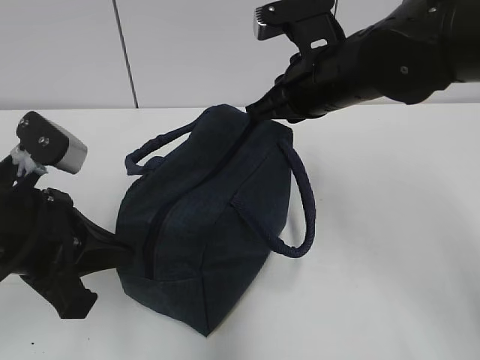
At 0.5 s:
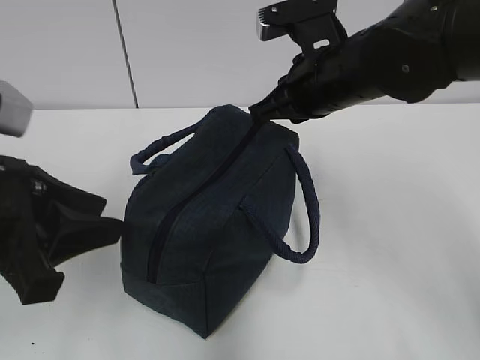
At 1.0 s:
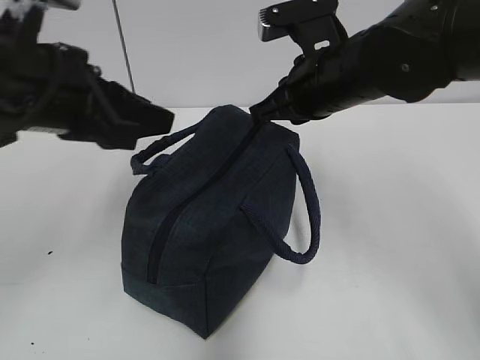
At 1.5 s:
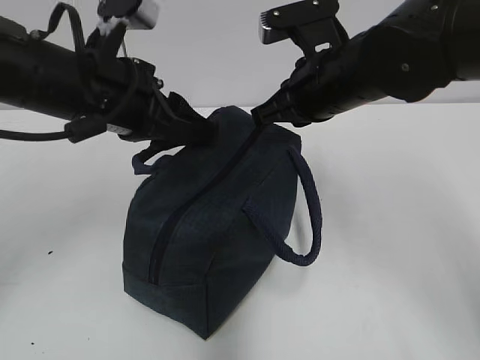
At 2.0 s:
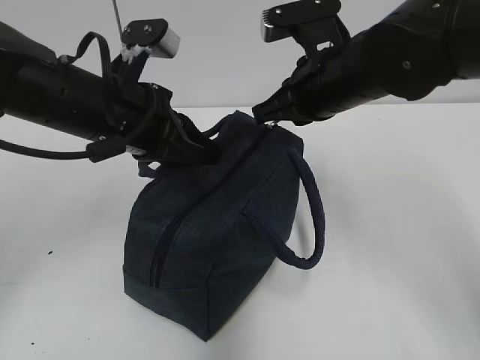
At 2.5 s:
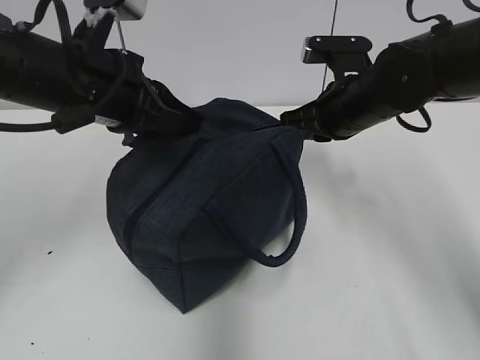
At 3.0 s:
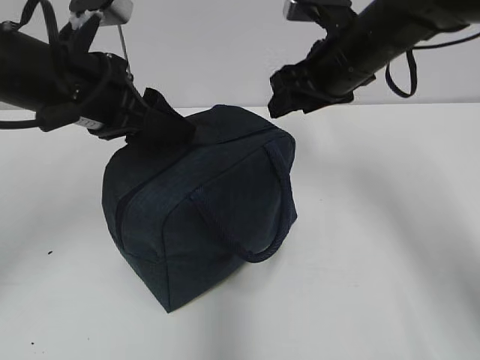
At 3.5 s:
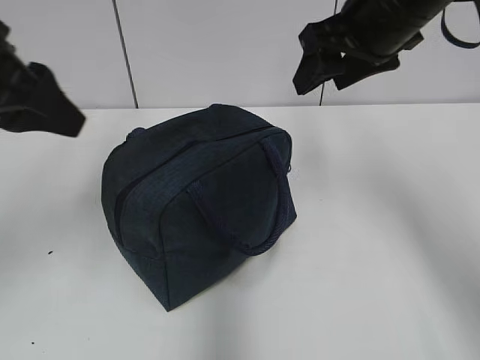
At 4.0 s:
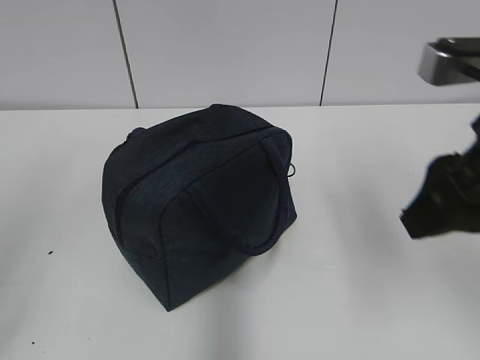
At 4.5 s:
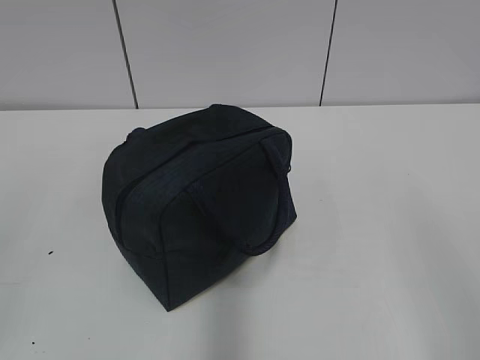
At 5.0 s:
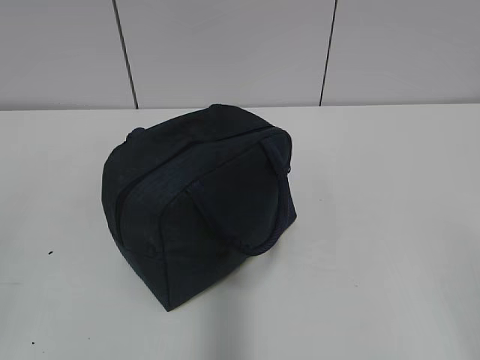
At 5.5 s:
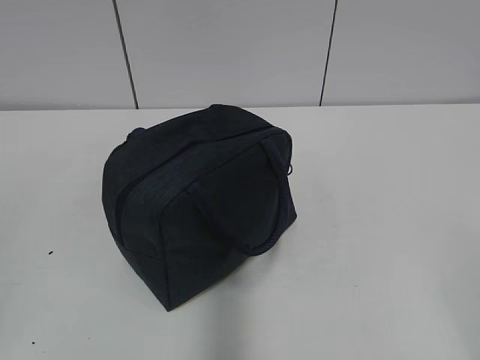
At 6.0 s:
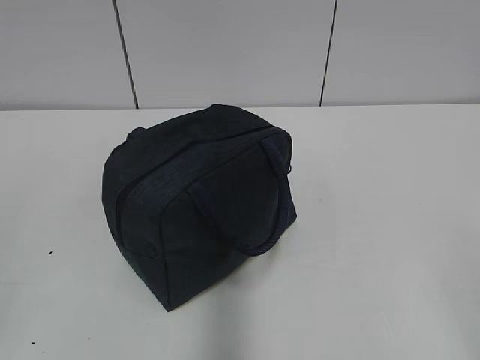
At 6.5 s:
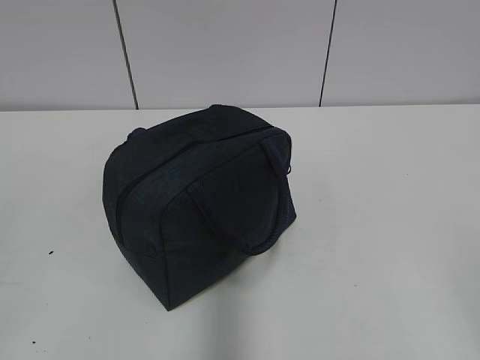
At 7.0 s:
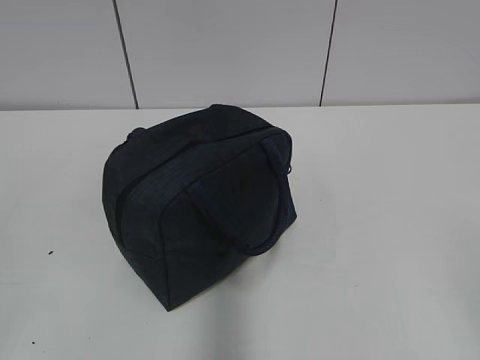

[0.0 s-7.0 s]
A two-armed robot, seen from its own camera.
Step, 0.5 to 2.5 s: Pull the zipper with your right hand.
0.0 to 2.0 s: The left gripper heads forward and to the right, covering approximately 15 cm, and opens, then closes once more.
2.0 to 3.5 s: The right gripper shifts approximately 5 cm upward, and opens its fingers. Meanwhile the left gripper moves upward, to the left and backward, roughly 15 cm, and opens.
3.5 to 5.0 s: The left gripper travels backward and to the left by roughly 25 cm. The right gripper heads backward, covering approximately 35 cm.

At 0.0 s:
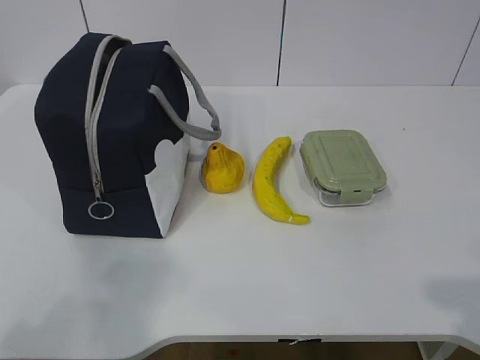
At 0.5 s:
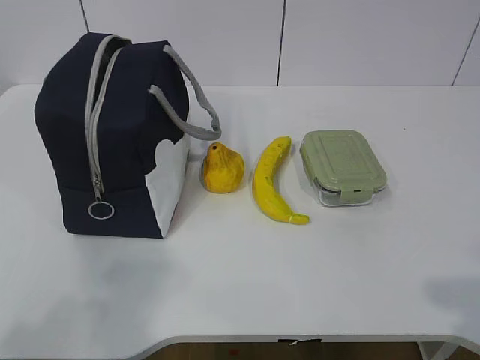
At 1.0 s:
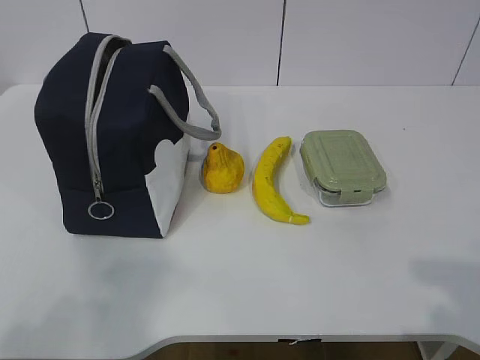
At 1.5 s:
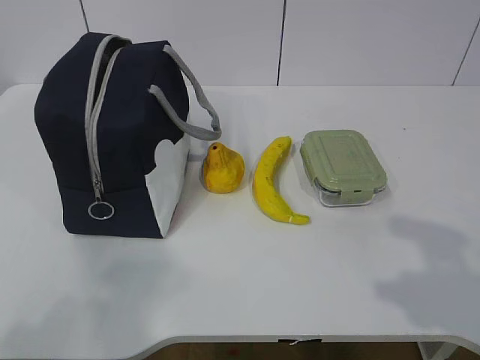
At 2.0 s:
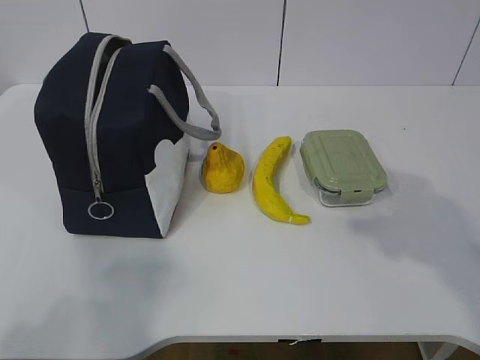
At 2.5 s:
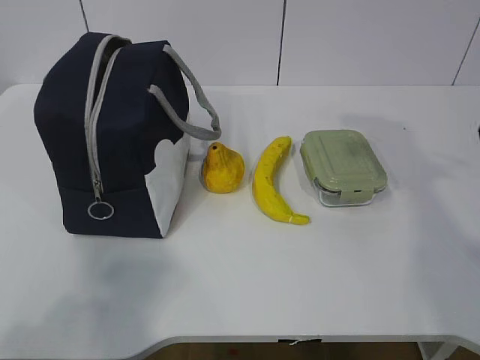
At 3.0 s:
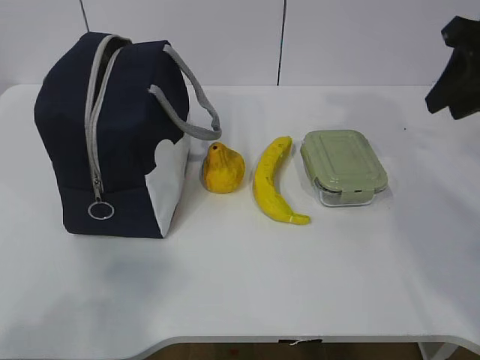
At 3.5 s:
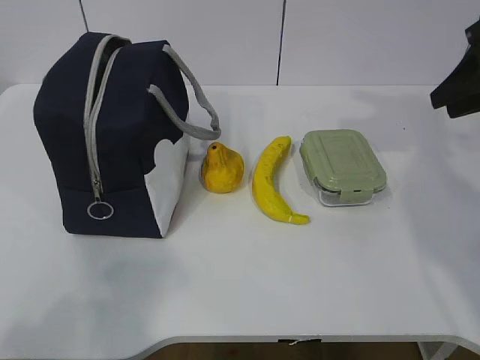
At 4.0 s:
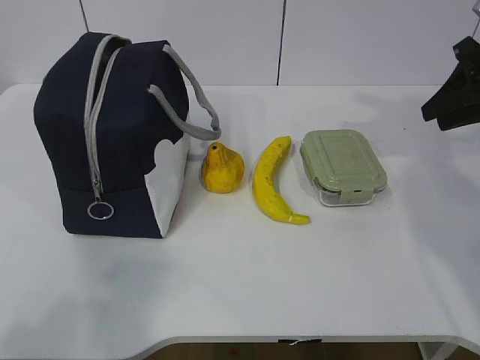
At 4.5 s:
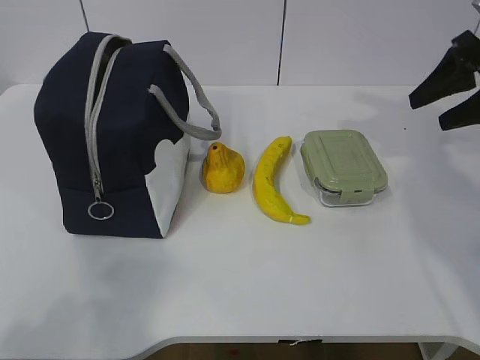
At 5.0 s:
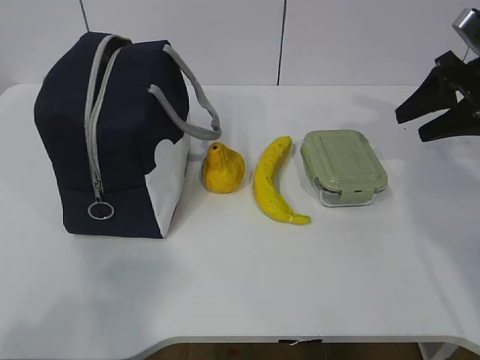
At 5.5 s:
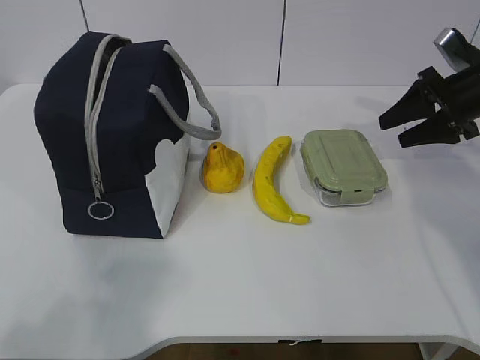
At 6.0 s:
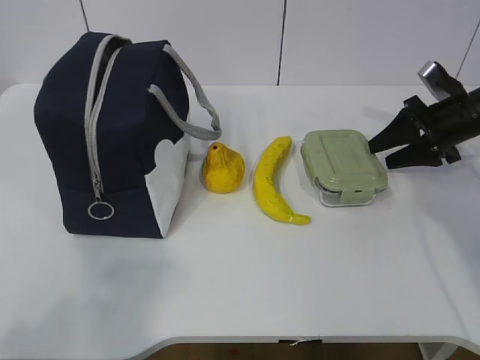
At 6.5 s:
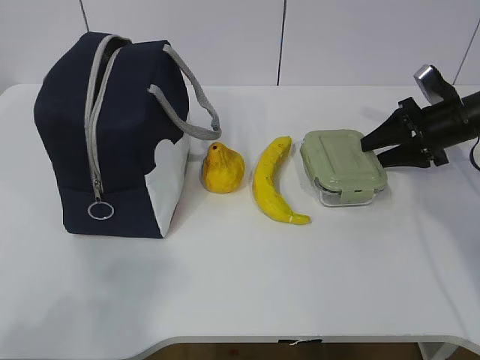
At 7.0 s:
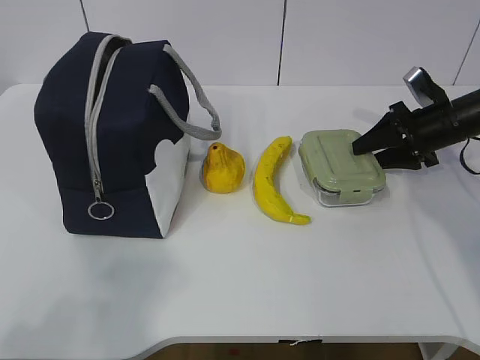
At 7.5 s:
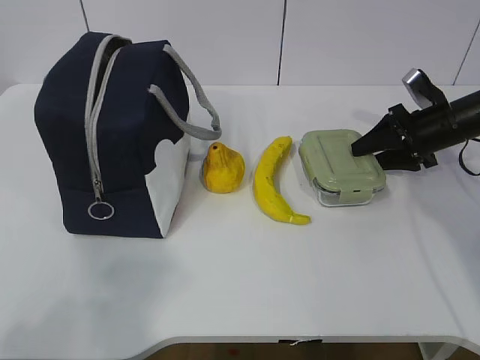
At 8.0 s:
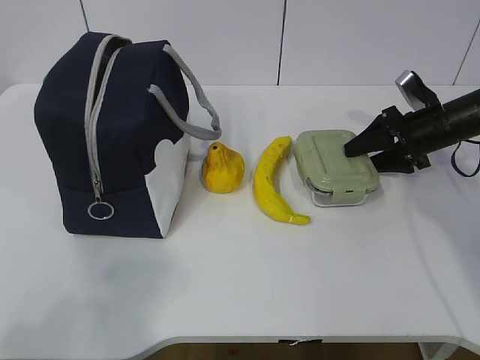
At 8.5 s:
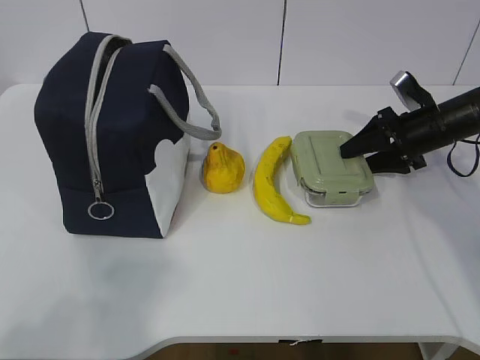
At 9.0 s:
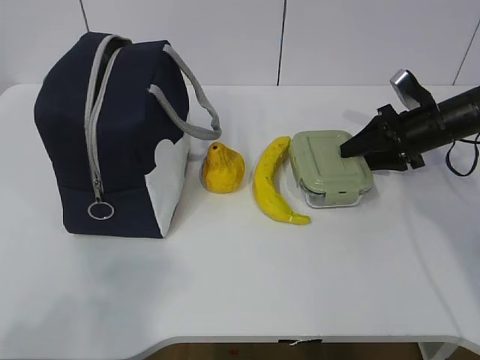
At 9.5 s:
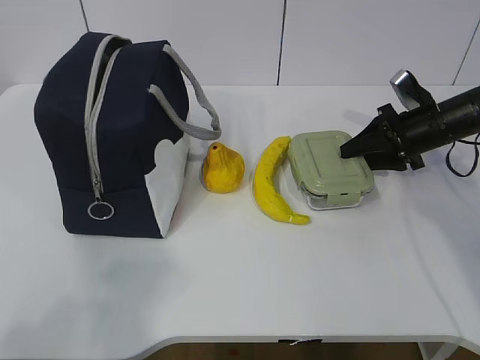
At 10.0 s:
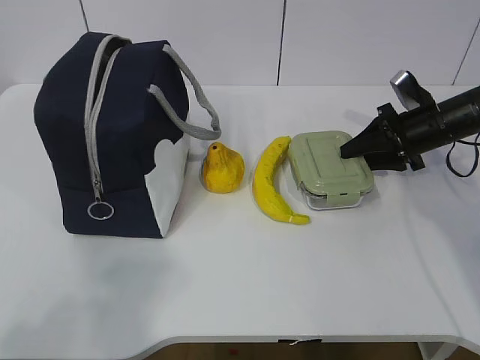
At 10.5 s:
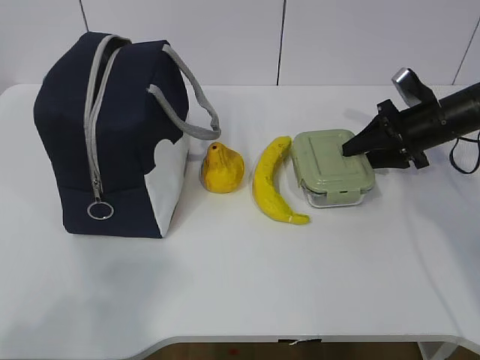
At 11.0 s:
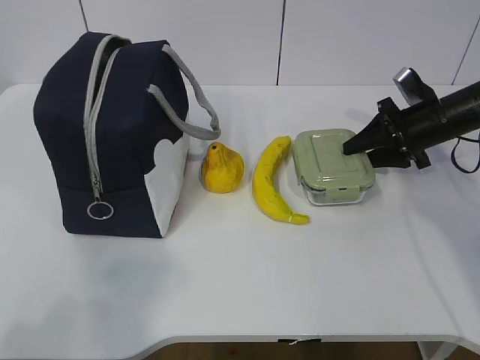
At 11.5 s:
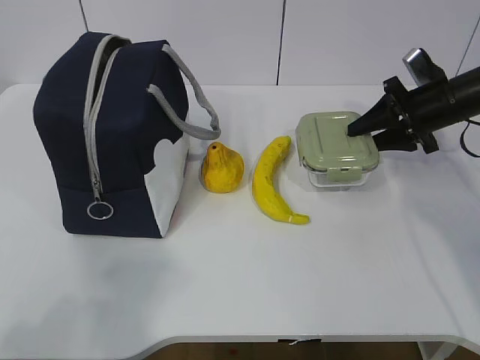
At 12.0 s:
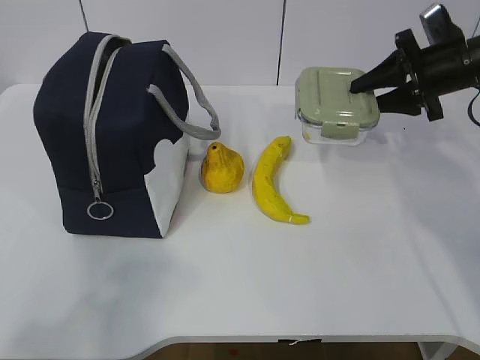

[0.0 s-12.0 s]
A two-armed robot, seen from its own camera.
Step, 0.0 to 9.0 s: Grab the lunch box with your right hand.
2.0 to 4.0 s: The right gripper shifts some 25 cm forward.
4.0 to 6.0 s: The right gripper goes some 15 cm downward and forward.
6.0 to 8.0 s: The grippers stay close to where they were, moving slightly.
8.0 to 10.0 s: The two grippers keep their place.
10.0 to 12.0 s: The right gripper heads upward, covering approximately 10 cm.

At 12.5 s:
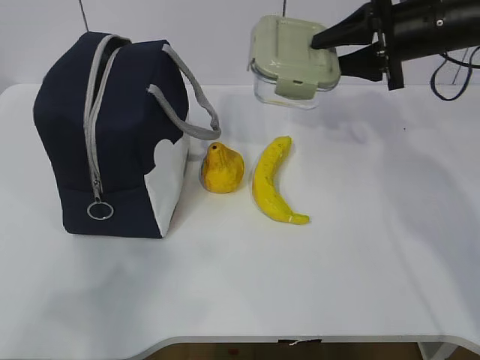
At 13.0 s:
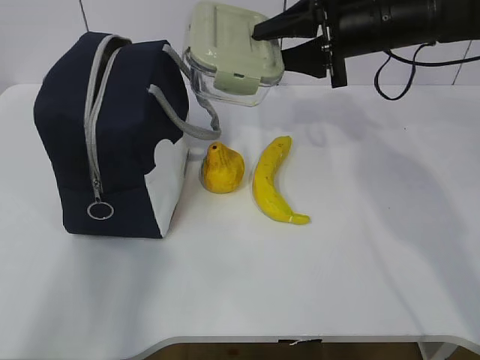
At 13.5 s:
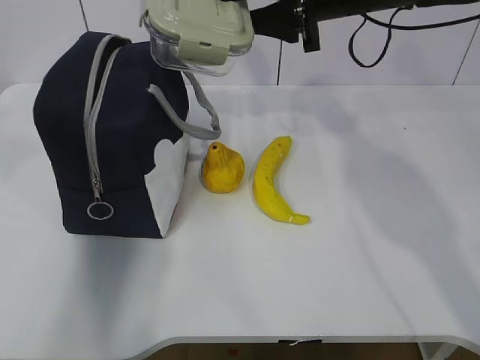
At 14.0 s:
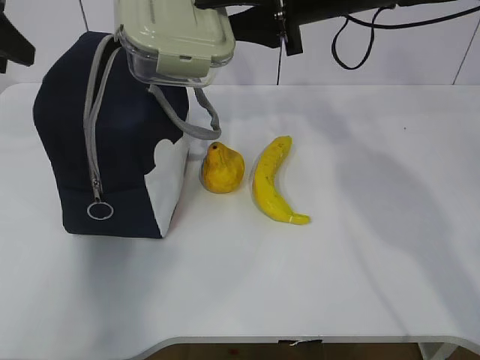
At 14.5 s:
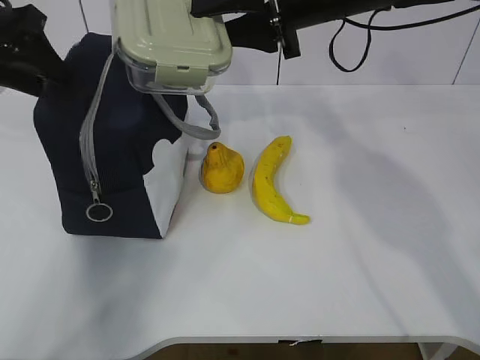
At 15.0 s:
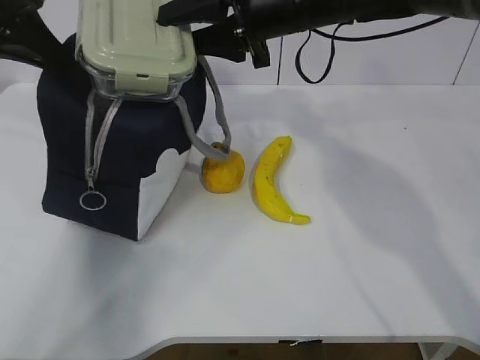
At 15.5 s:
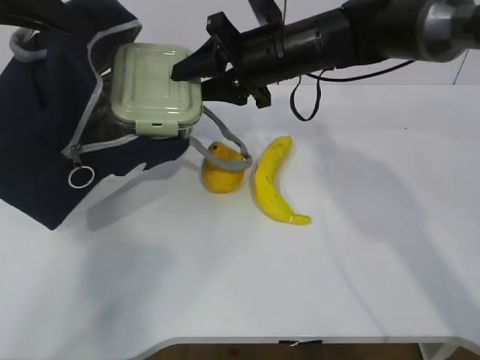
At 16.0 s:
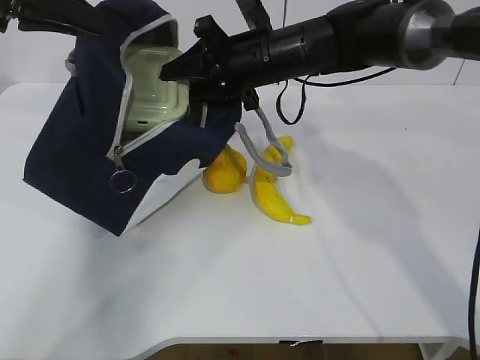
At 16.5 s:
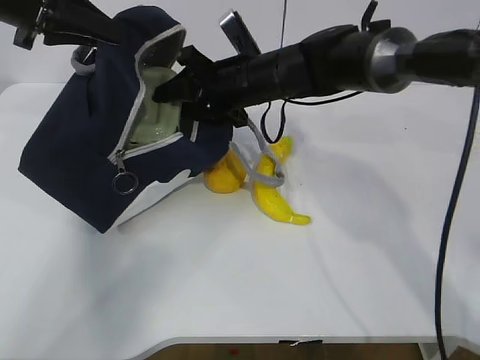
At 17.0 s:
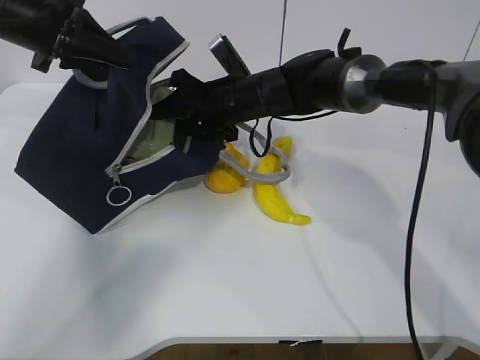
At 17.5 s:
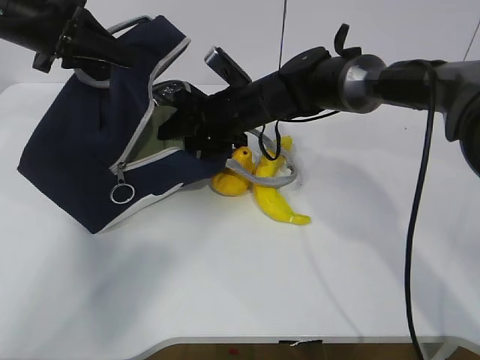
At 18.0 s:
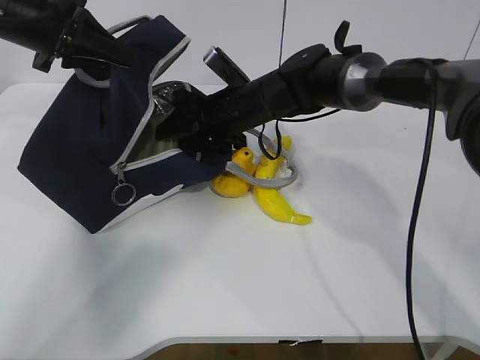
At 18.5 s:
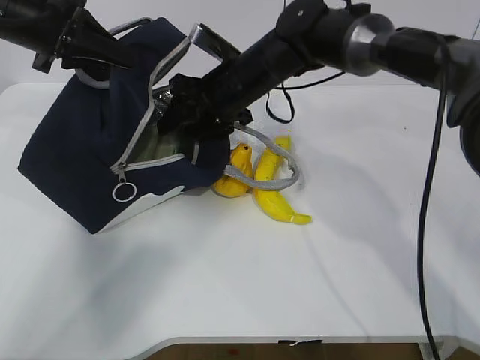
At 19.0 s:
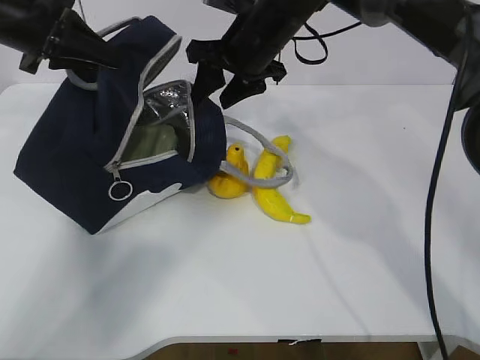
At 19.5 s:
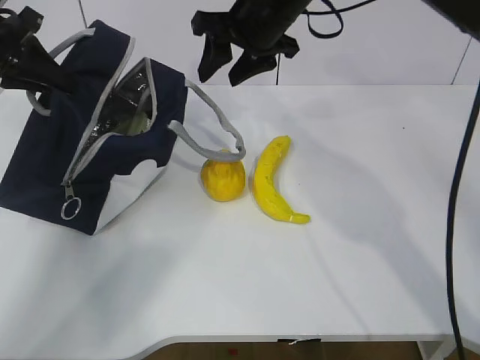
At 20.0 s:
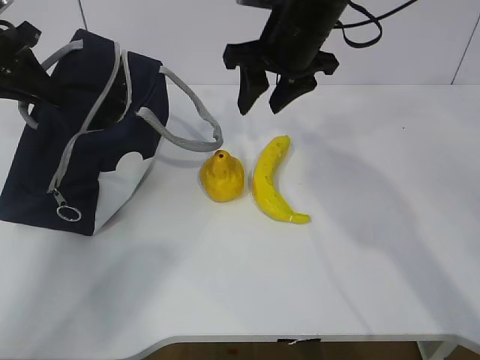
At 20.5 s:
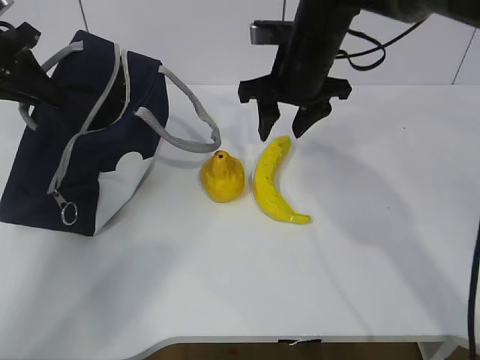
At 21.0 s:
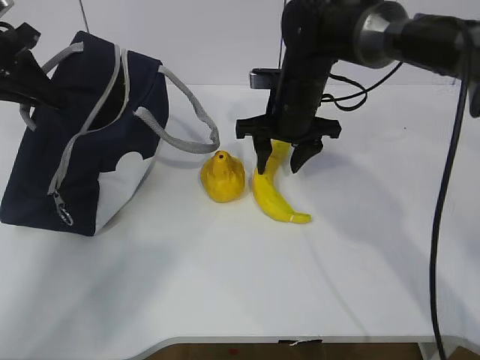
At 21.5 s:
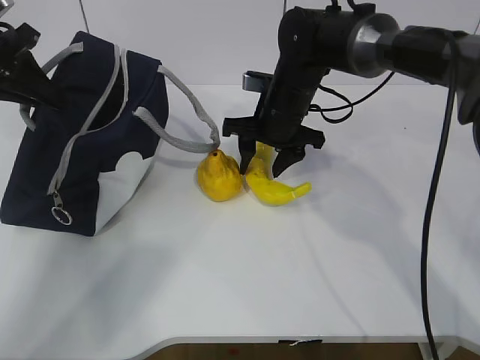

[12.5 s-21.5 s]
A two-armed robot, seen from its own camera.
Step, 13.0 to 15.0 s: Place it into the bag with your right hand.
Step, 15.5 to 18.5 s: Grab the banana with your right hand.
12.5 to 14.5 s: The left gripper travels forward by roughly 35 cm, and opens its fingers. The right gripper goes approximately 15 cm to the left.
14.5 to 17.0 s: The right gripper travels downward, to the left and forward by approximately 20 cm. The left gripper changes place by approximately 5 cm, and closes its fingers.
17.0 to 19.5 s: The left gripper travels to the left by about 5 cm; the right gripper travels upward by approximately 10 cm.
19.5 to 21.5 s: The right gripper heads downward, covering approximately 10 cm.
